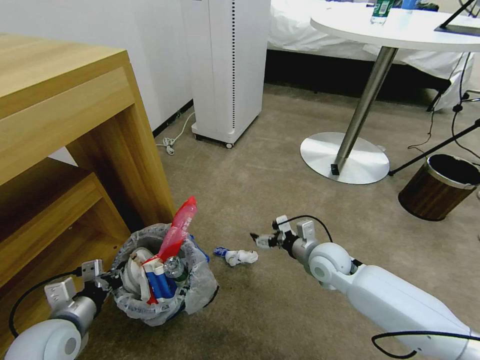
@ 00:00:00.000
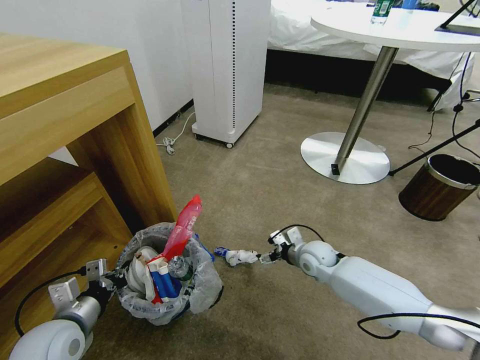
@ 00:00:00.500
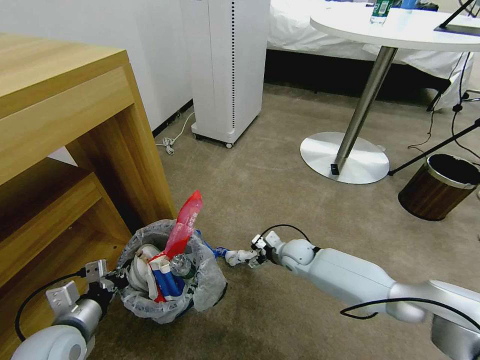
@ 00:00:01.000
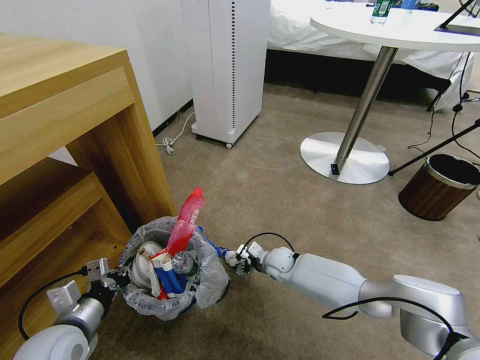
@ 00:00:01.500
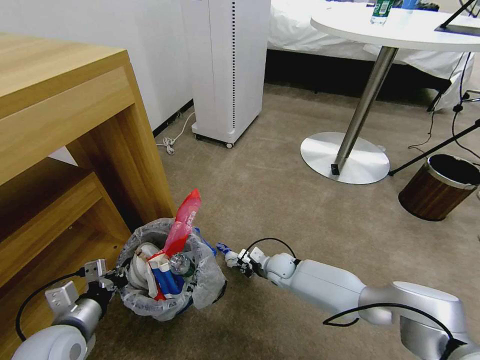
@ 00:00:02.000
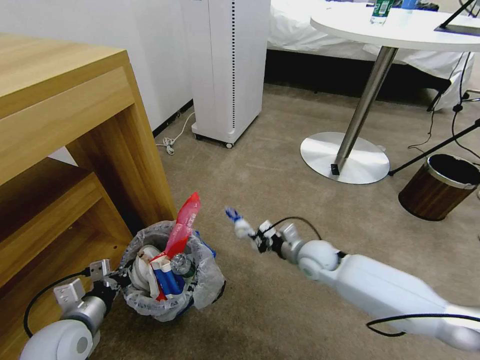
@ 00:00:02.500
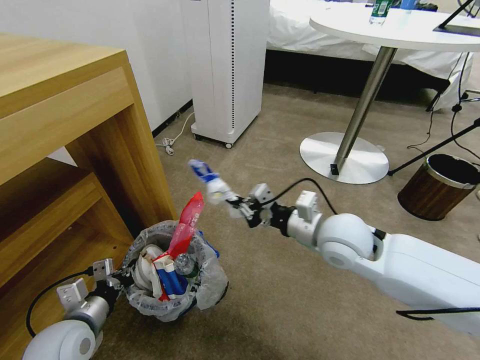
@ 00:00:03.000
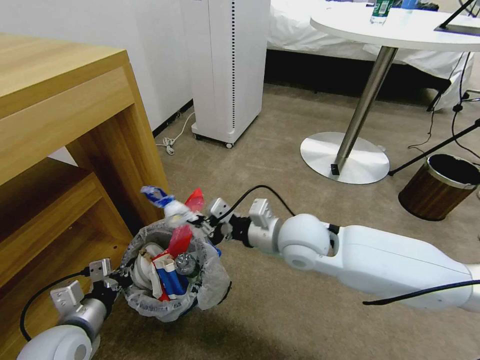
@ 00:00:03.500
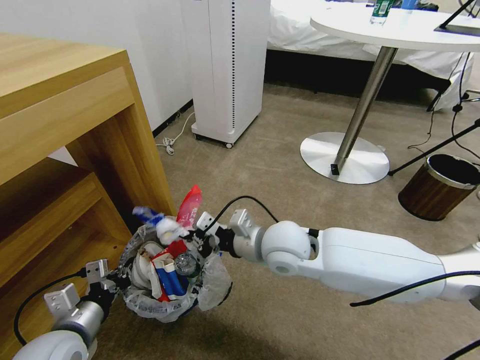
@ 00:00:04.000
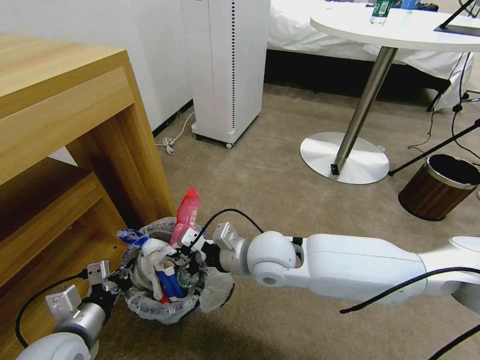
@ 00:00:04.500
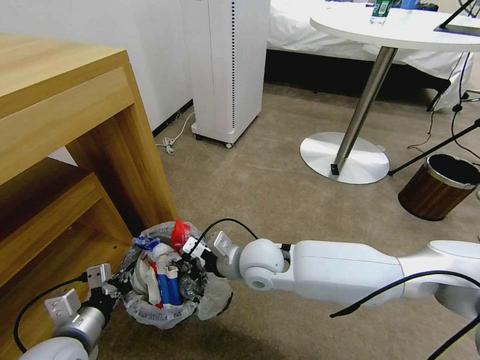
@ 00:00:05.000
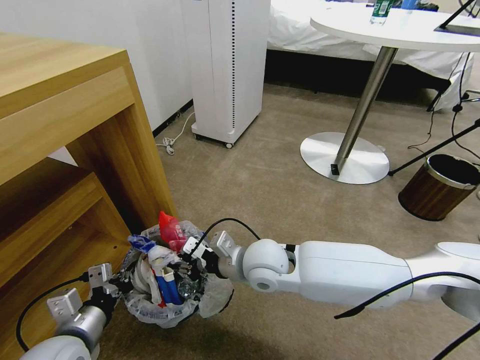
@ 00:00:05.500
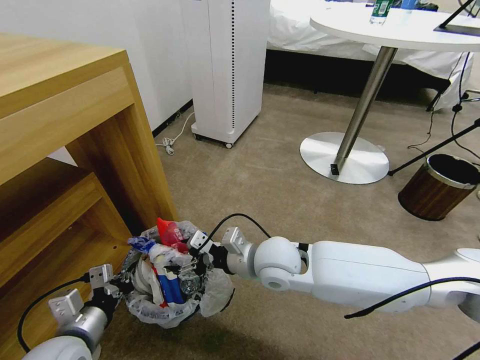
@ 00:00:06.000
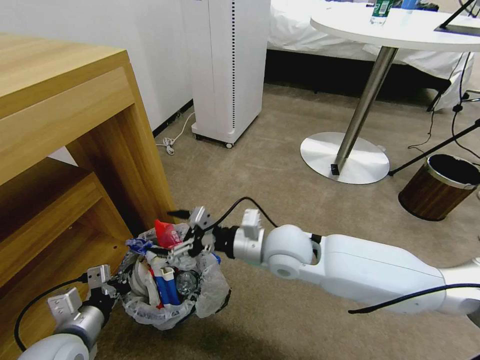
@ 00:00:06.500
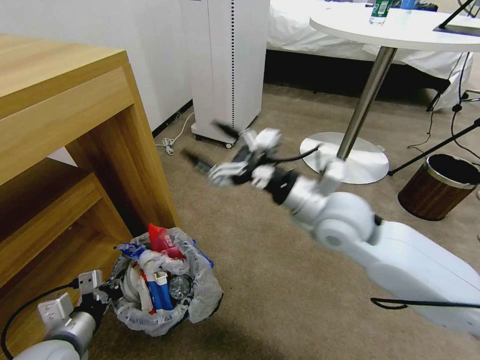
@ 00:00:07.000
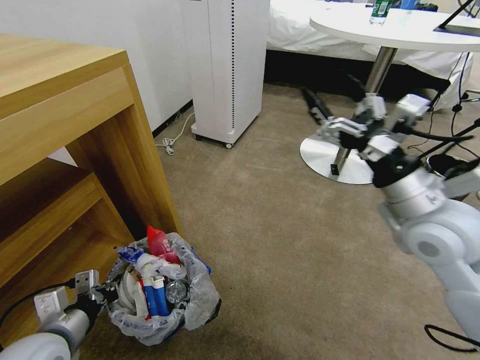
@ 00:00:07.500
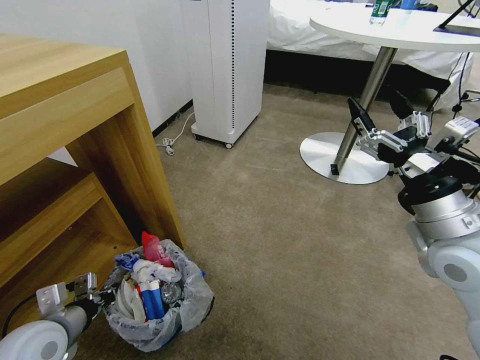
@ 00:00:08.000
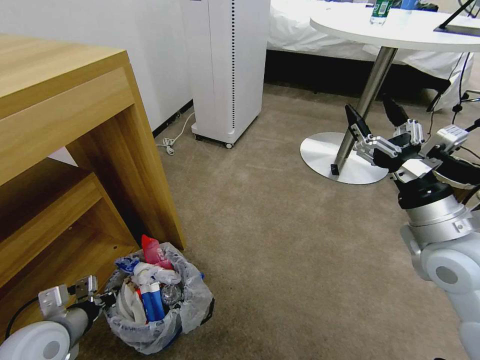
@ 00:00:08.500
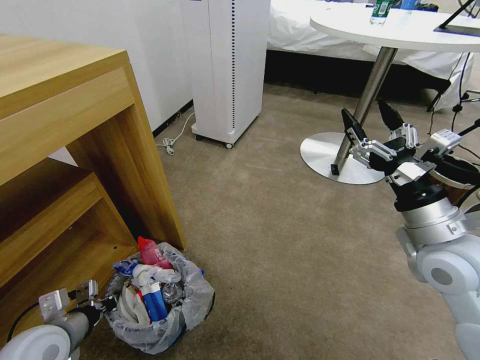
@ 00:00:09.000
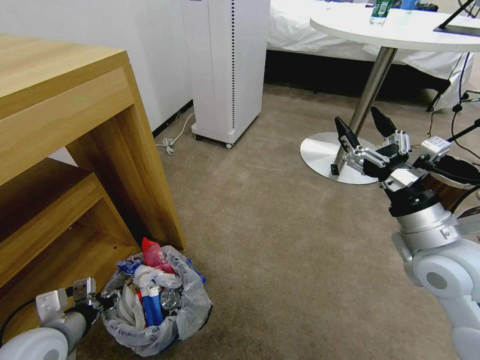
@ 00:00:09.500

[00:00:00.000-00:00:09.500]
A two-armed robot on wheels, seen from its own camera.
Task of the whole recording: Pick up the trash bin and place the garbage on the floor into it.
00:00:00.000 to 00:00:02.000: The right gripper is displaced downward and to the left by approximately 15 cm, and closes.
00:00:02.000 to 00:00:04.000: The right gripper moves upward, roughly 30 cm.
00:00:04.000 to 00:00:05.500: The right gripper moves roughly 5 cm.
00:00:05.500 to 00:00:07.500: The right gripper is displaced to the right and upward by approximately 30 cm, and opens its fingers.
00:00:07.500 to 00:00:09.500: The left gripper opens. The right gripper shifts by some 5 cm.

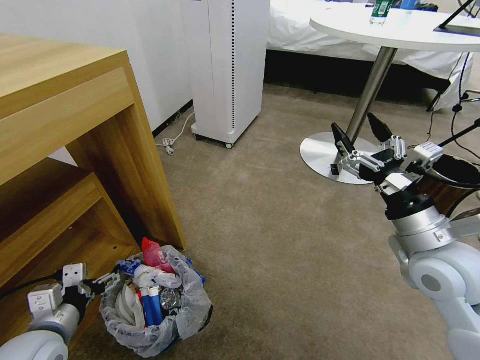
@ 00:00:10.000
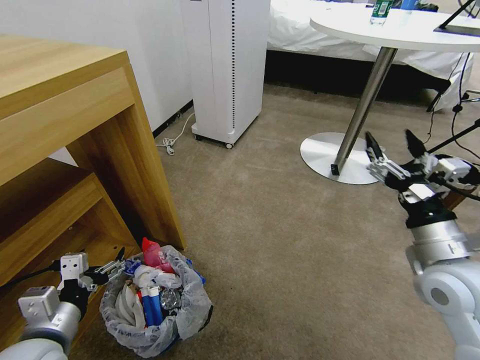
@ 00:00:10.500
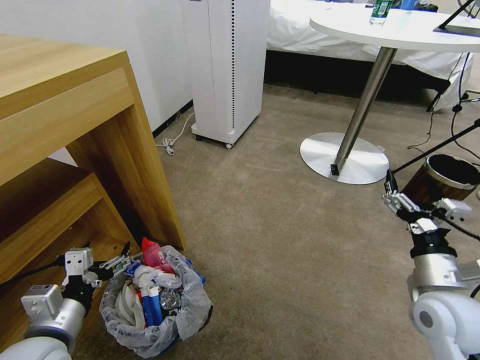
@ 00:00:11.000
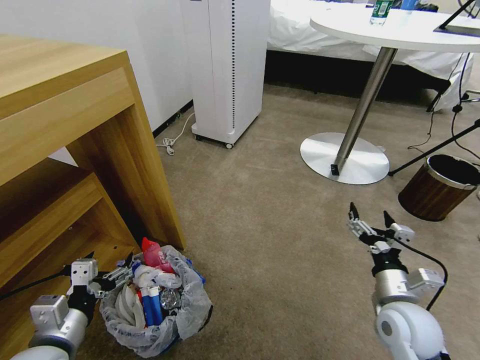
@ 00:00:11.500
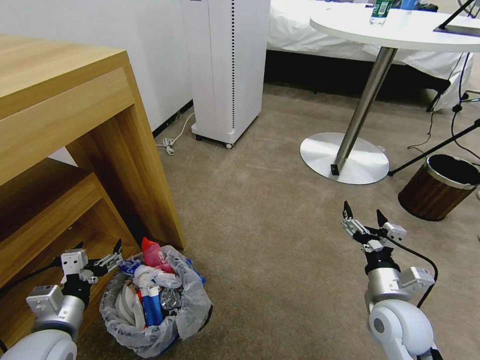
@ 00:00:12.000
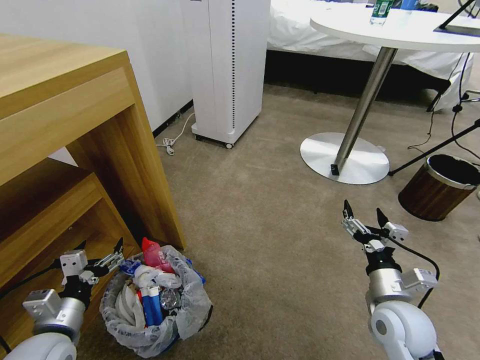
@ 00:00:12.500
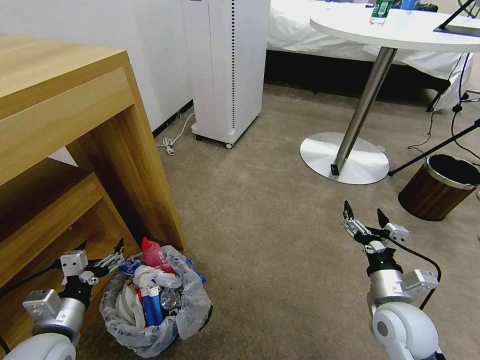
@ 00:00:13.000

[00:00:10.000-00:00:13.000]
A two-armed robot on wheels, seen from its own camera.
Task of the whole recording: Pick up the trash bin and place the garbage on the floor into it.
00:00:10.000 to 00:00:11.500: The right gripper goes about 15 cm downward.
00:00:11.500 to 00:00:13.000: The left gripper moves some 5 cm.
